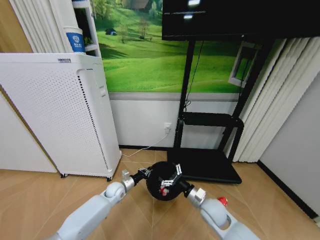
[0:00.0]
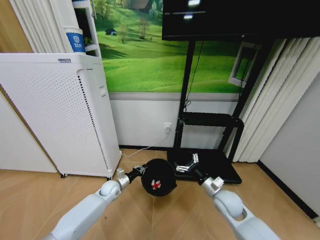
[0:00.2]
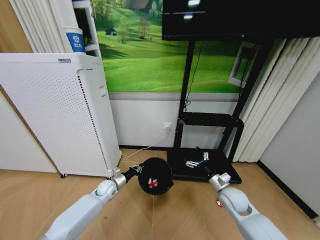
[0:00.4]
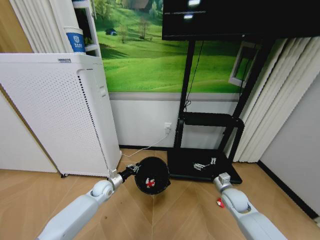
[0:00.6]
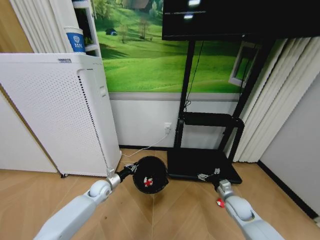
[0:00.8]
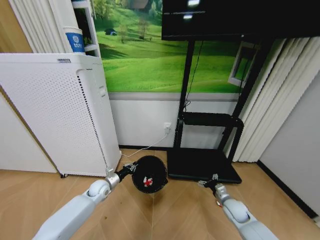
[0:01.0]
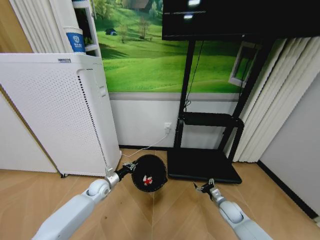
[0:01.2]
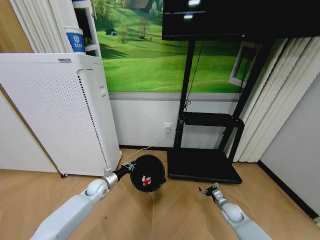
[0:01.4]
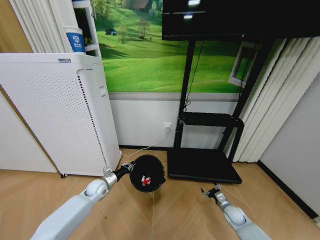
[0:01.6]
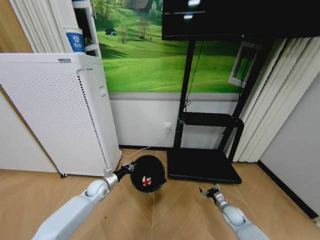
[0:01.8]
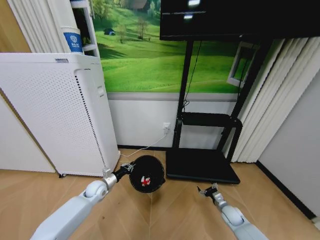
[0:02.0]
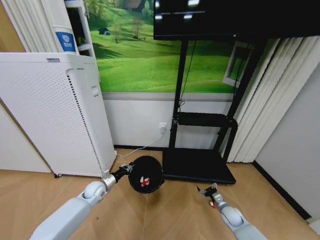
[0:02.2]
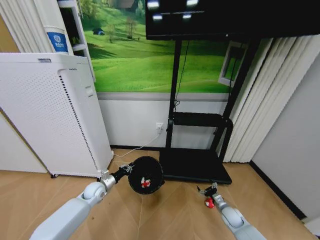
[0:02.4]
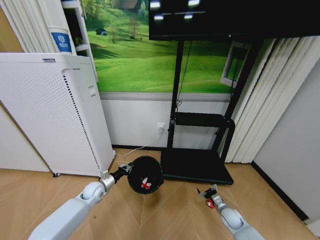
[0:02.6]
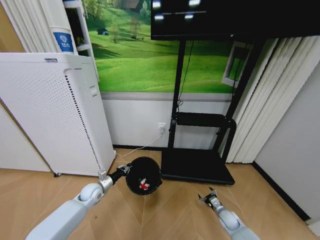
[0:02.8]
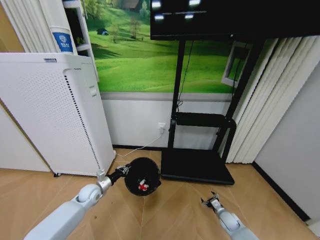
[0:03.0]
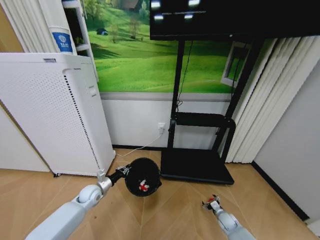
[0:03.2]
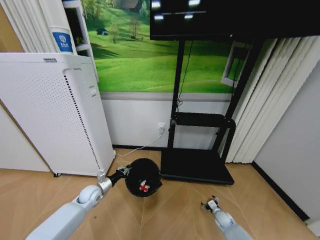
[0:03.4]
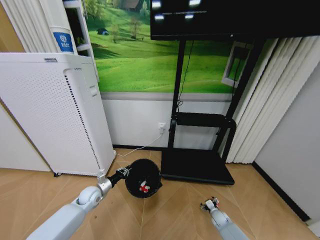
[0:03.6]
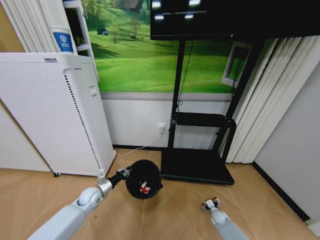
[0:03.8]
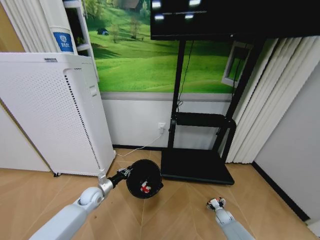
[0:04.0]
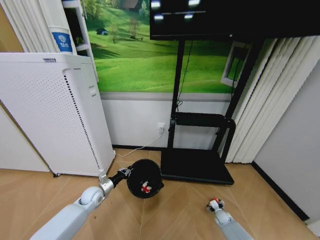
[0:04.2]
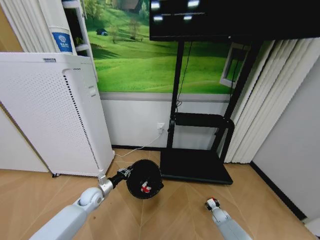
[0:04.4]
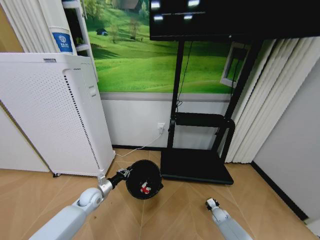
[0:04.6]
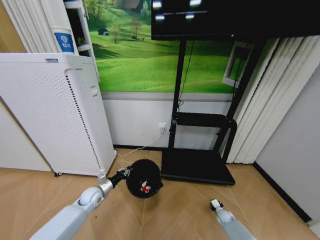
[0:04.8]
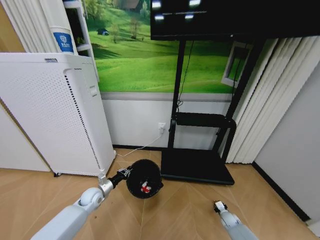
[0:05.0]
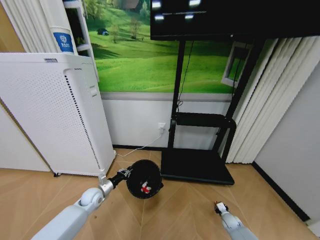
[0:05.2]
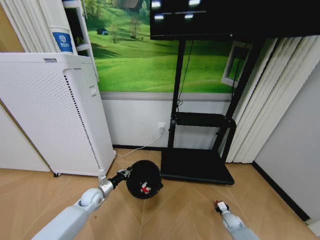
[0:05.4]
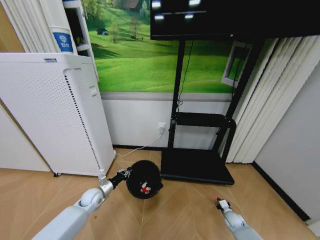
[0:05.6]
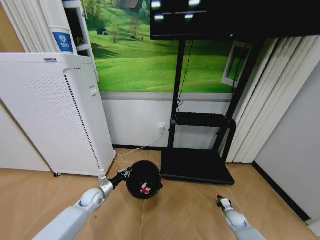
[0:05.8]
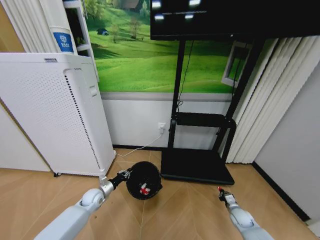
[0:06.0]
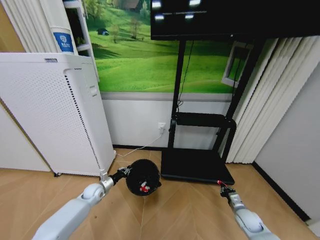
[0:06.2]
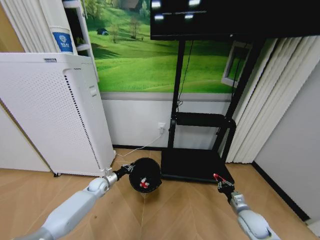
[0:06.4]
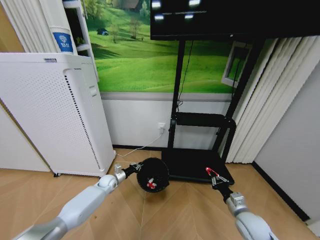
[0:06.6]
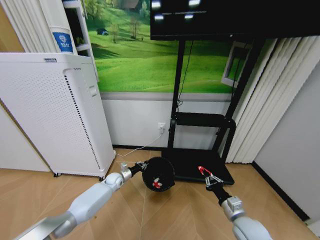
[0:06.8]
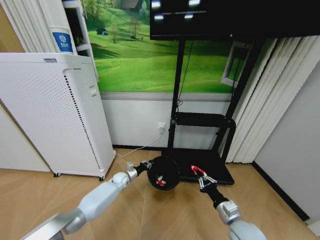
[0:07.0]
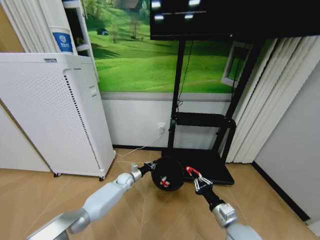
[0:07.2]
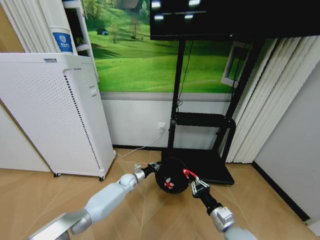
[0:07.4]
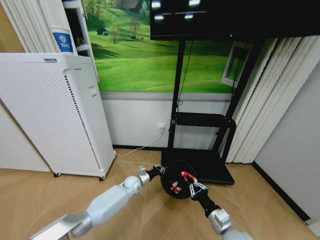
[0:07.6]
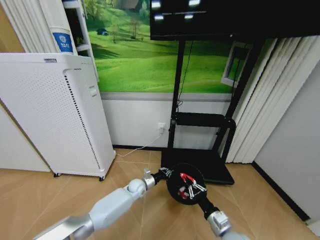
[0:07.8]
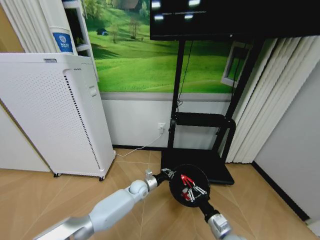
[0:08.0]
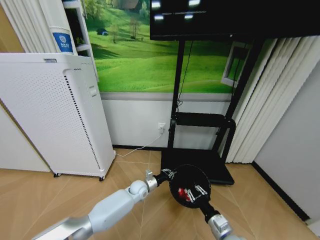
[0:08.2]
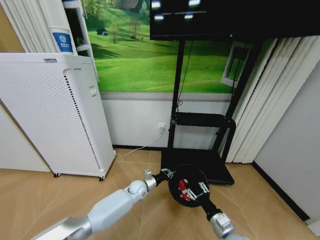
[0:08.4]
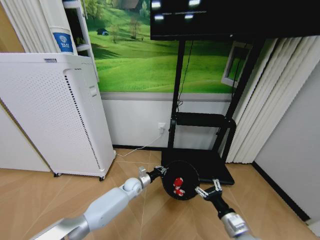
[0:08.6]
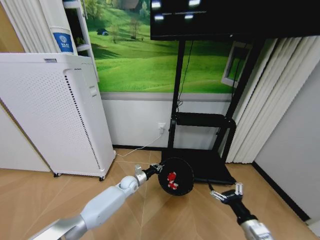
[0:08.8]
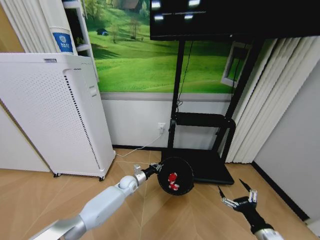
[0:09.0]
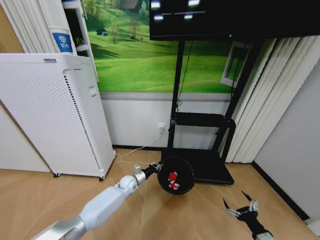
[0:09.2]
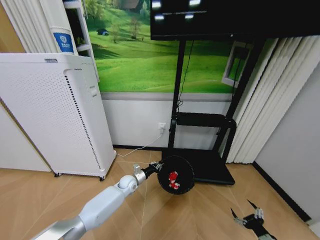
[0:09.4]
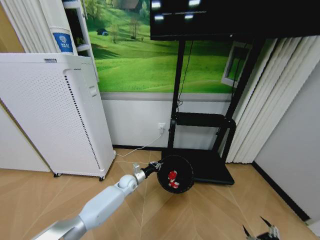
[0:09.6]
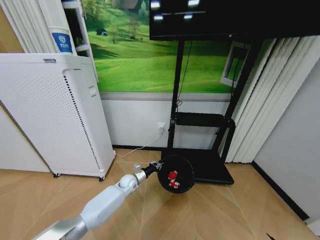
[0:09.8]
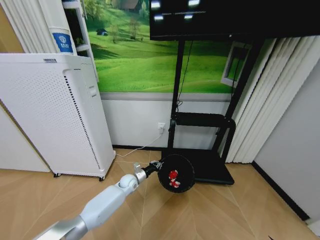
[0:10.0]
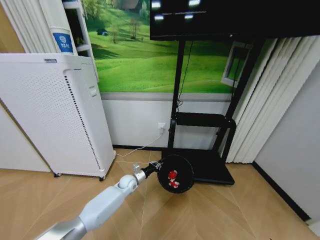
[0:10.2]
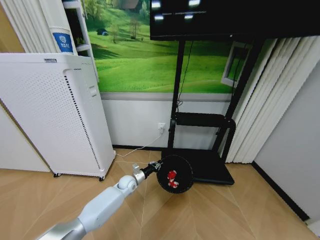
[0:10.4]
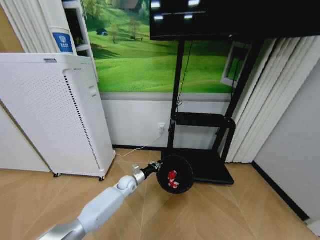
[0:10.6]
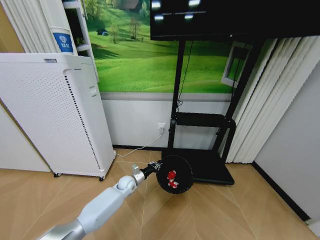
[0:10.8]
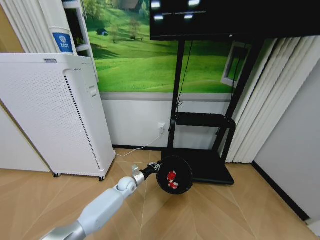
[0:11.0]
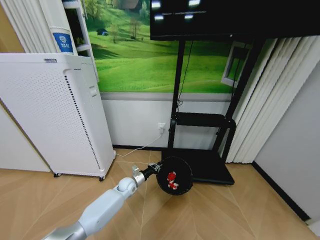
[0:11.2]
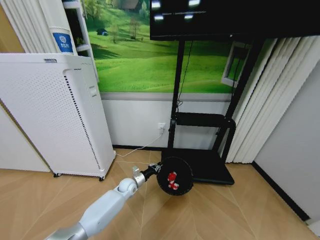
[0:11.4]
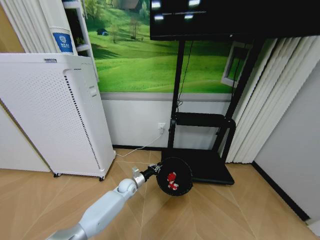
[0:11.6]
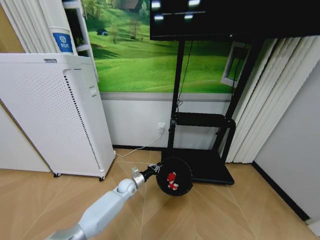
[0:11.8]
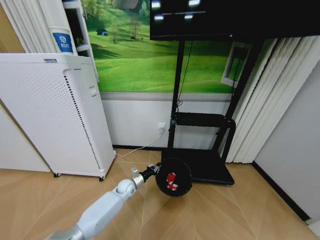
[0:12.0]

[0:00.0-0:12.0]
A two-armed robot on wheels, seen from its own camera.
Task of the whole recording: Pick up the trash bin and place the garbage on the floor into it.
0:00.0 to 0:01.6: The right gripper travels to the right and downward by approximately 25 cm. The left gripper travels to the left by about 10 cm.
0:03.0 to 0:04.4: The right gripper is displaced downward by about 5 cm.
0:04.4 to 0:06.0: The right gripper is displaced upward by about 10 cm, and closes.
0:06.0 to 0:07.6: The left gripper goes roughly 20 cm to the right and forward. Meanwhile the right gripper travels to the left, upward and backward by approximately 30 cm.
0:07.6 to 0:09.0: The right gripper goes roughly 15 cm to the right and backward, and opens.
0:09.0 to 0:10.4: The right gripper moves downward, backward and to the right, approximately 25 cm.
0:10.4 to 0:12.0: The right gripper moves some 5 cm.

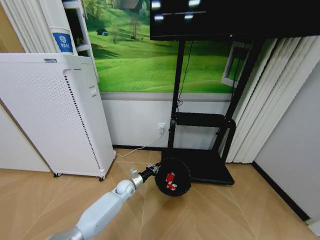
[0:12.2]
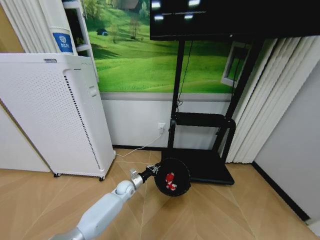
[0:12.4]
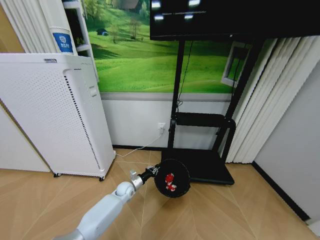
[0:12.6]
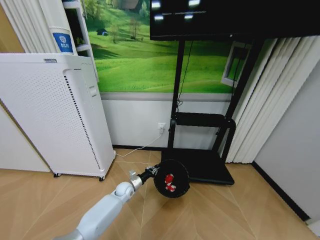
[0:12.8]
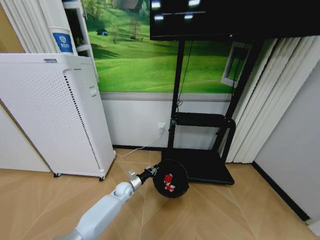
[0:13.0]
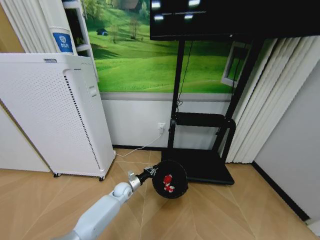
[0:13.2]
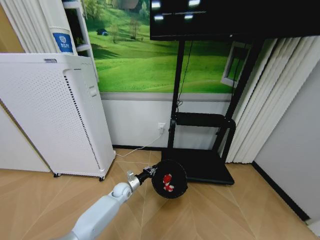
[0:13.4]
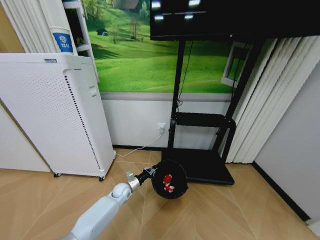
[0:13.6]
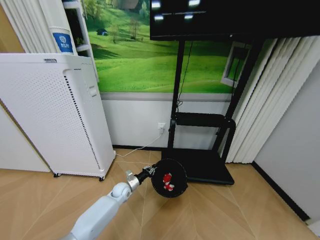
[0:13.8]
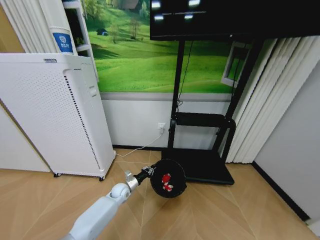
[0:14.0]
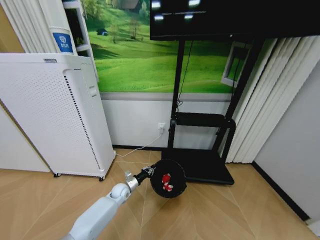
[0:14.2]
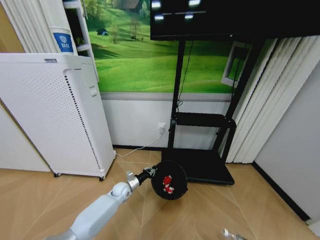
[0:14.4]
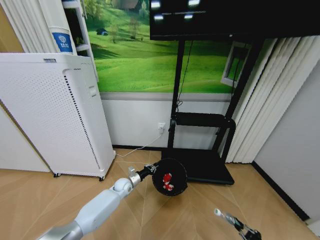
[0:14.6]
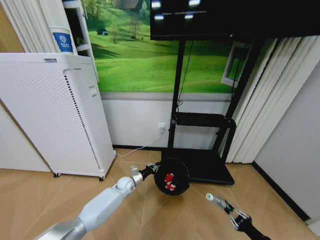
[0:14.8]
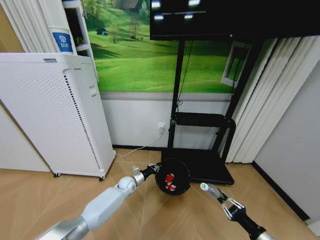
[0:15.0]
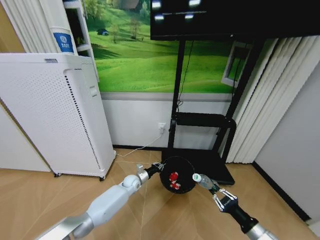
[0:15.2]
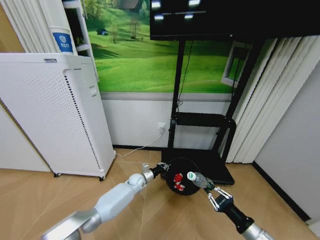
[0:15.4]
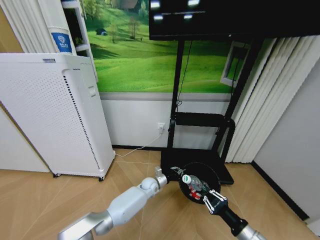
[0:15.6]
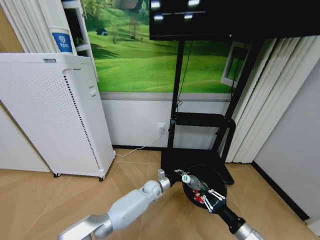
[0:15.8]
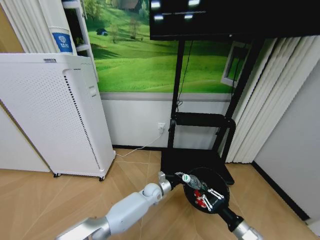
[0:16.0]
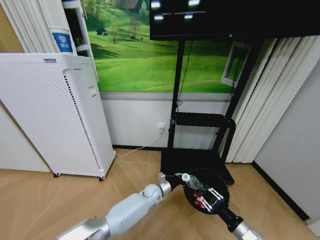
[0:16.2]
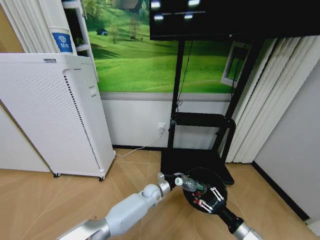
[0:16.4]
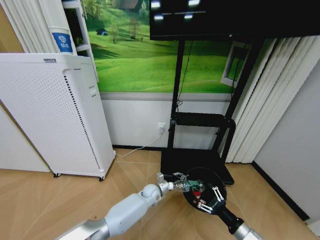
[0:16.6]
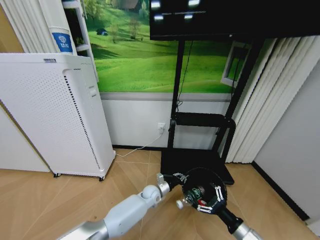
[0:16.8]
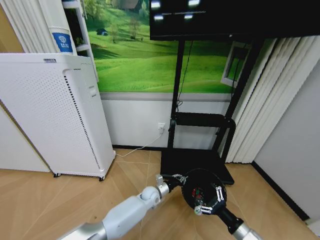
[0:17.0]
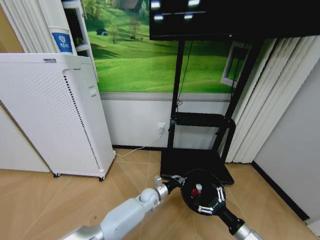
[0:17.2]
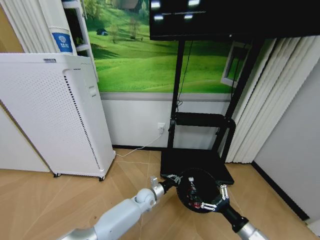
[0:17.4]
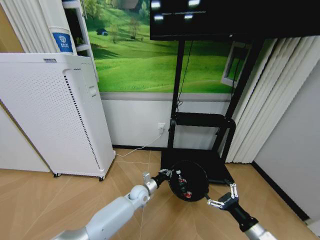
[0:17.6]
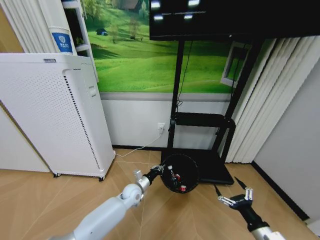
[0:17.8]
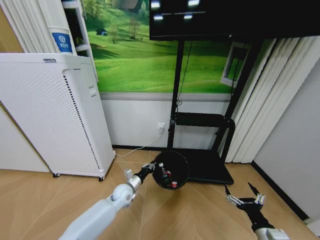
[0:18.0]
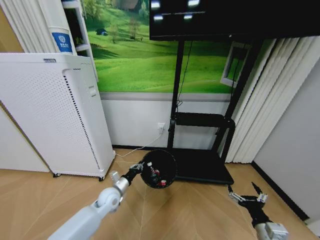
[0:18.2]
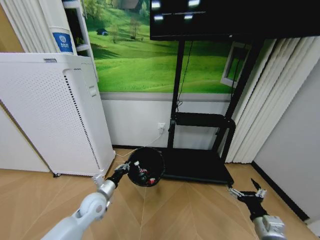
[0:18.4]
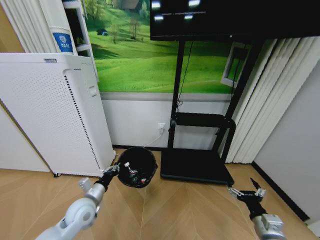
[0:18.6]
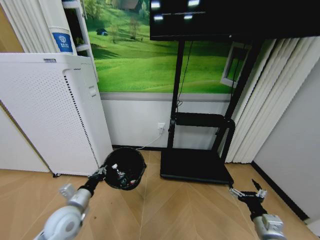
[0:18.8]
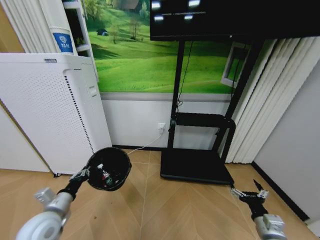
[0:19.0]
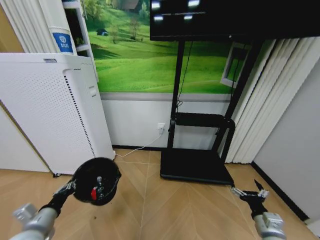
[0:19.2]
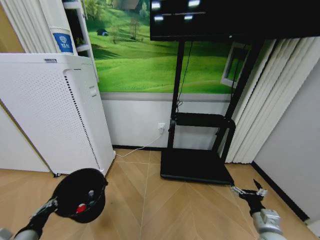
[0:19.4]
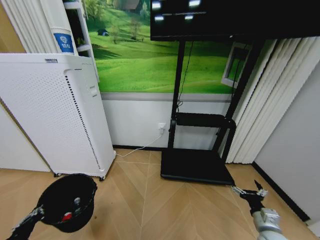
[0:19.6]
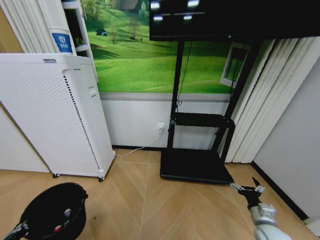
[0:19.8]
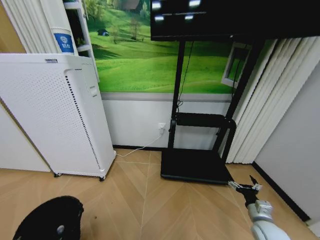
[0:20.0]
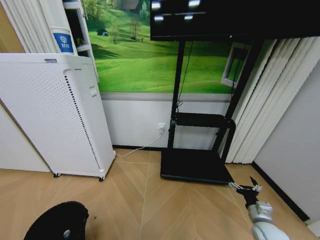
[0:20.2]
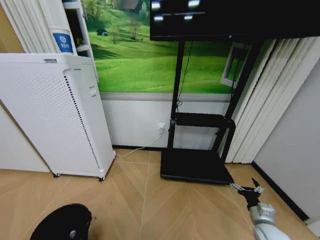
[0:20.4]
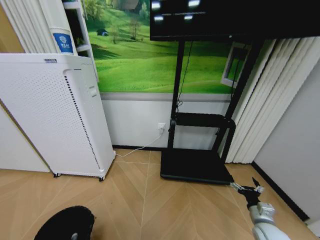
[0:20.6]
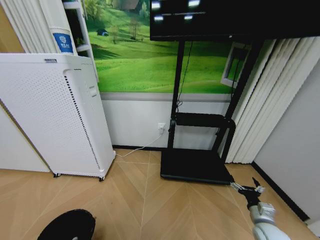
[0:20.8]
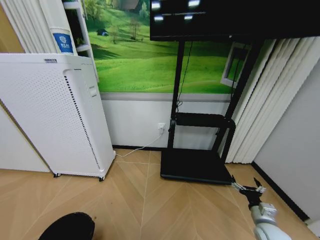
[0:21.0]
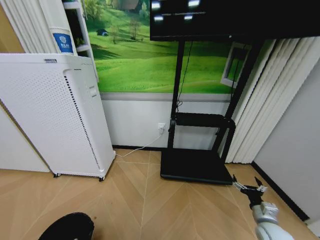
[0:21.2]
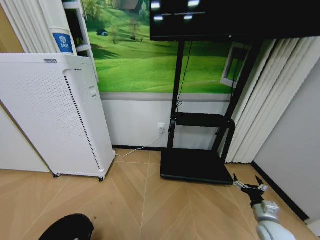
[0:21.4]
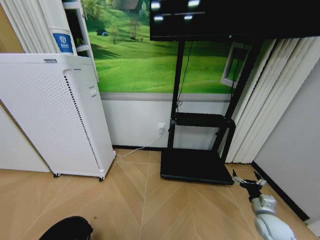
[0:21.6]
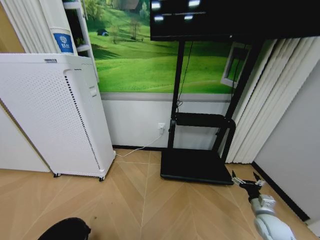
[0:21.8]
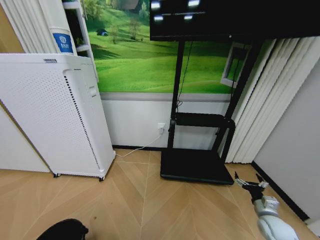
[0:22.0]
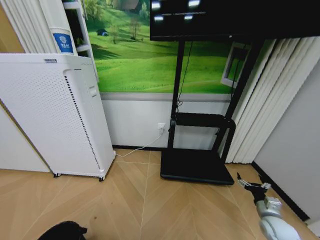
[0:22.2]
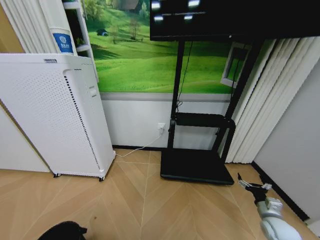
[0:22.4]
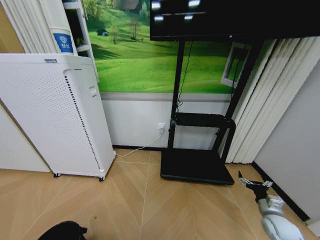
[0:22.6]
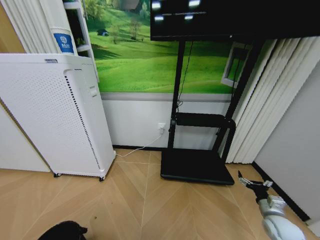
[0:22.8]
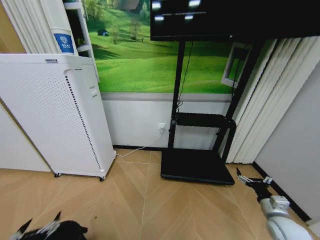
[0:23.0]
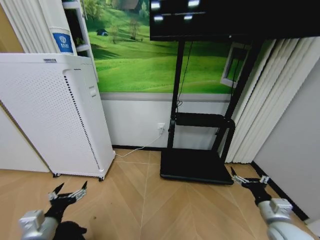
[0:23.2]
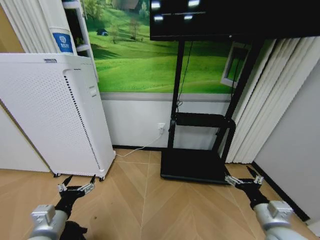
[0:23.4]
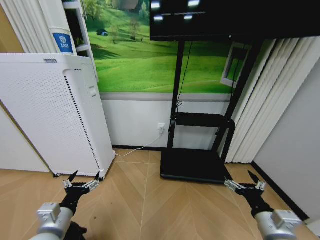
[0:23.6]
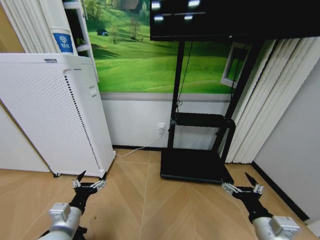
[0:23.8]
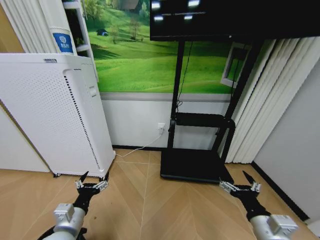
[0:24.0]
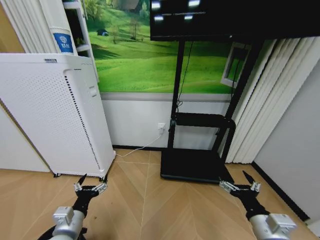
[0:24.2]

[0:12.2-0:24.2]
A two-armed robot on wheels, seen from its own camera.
Task of the whole recording: Pick up the trash bin and place the garbage on the floor into it.
0:12.2 to 0:13.8: The right gripper closes up.
0:13.8 to 0:15.2: The right gripper goes approximately 30 cm upward, to the left and forward, while the left gripper heads to the right, covering about 5 cm.
0:15.2 to 0:16.6: The right gripper opens up, while the left gripper shifts approximately 15 cm to the right and backward.
0:16.6 to 0:18.2: The left gripper moves to the left, roughly 20 cm.
0:18.2 to 0:19.8: The left gripper shifts some 35 cm backward and to the left, while the right gripper heads forward and to the right, covering approximately 10 cm.
0:19.8 to 0:21.2: The left gripper moves downward, approximately 10 cm.
0:21.2 to 0:22.6: The left gripper opens.
0:22.6 to 0:24.2: The left gripper moves forward, to the right and upward, approximately 25 cm; the right gripper travels to the left, upward and backward by some 25 cm.
